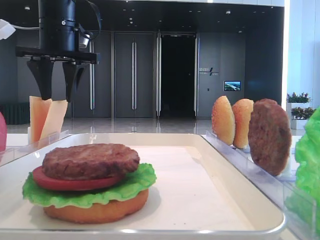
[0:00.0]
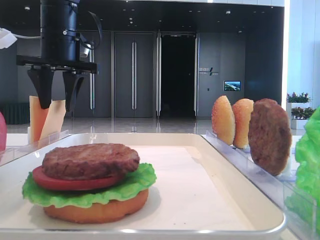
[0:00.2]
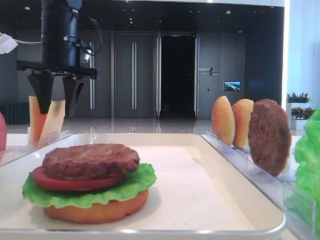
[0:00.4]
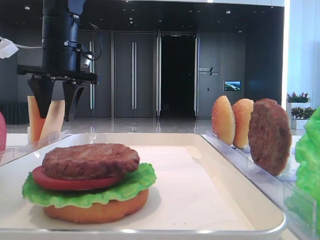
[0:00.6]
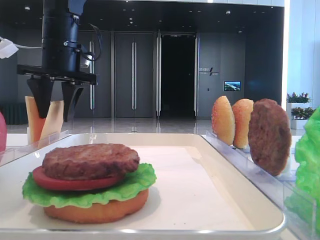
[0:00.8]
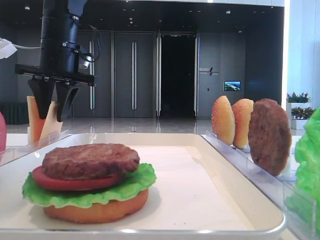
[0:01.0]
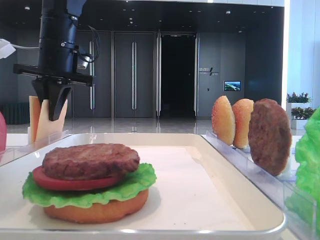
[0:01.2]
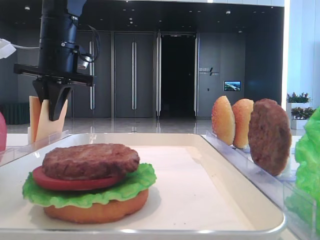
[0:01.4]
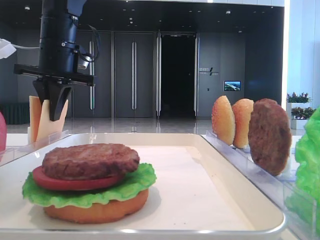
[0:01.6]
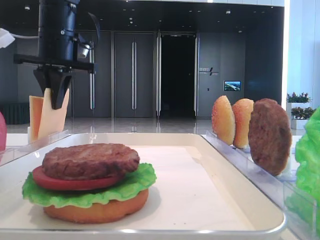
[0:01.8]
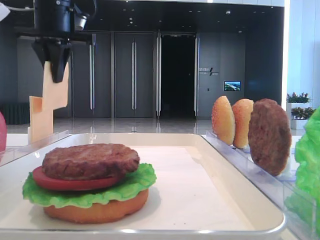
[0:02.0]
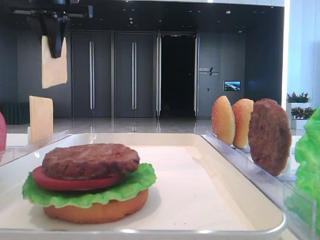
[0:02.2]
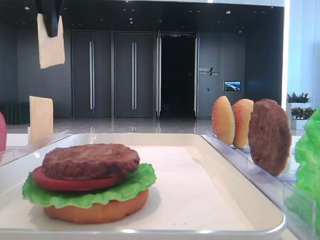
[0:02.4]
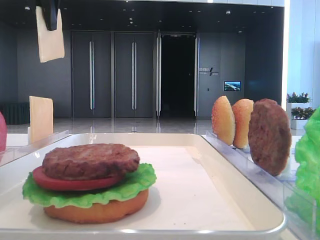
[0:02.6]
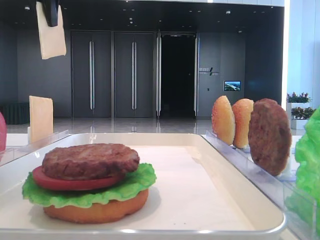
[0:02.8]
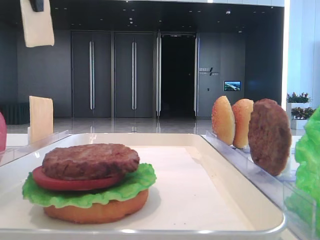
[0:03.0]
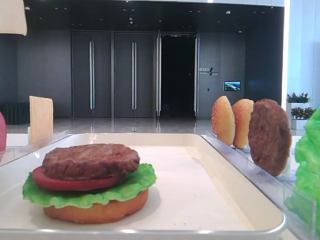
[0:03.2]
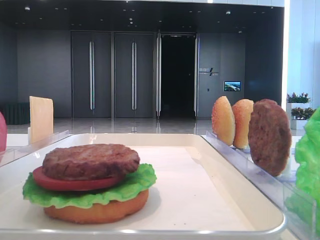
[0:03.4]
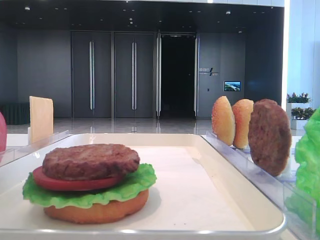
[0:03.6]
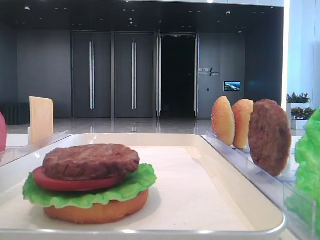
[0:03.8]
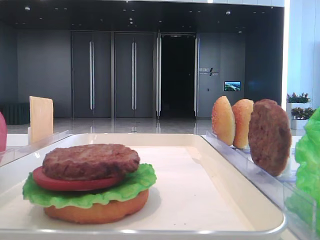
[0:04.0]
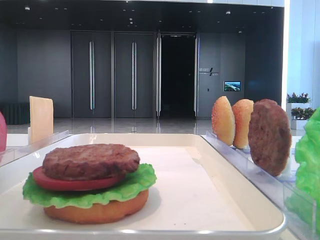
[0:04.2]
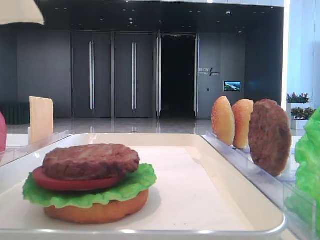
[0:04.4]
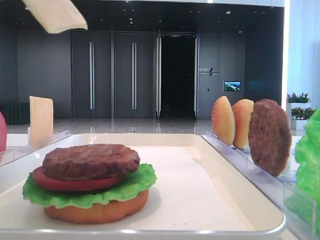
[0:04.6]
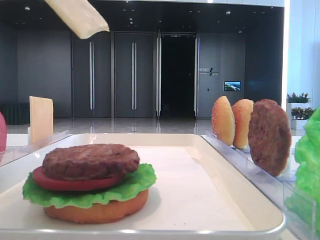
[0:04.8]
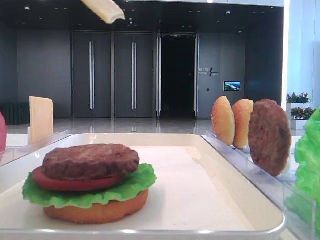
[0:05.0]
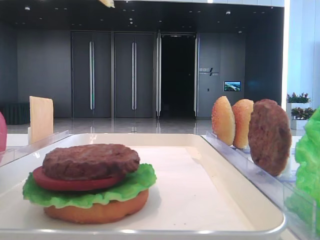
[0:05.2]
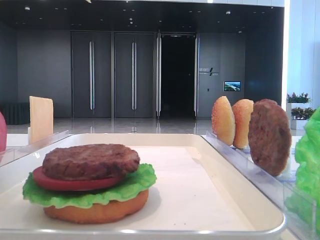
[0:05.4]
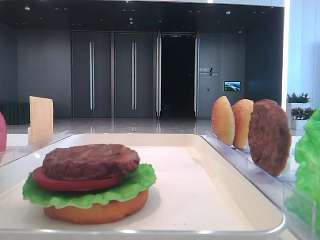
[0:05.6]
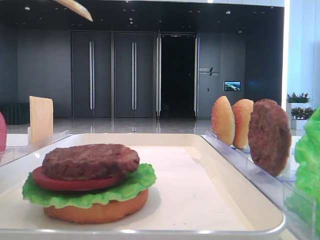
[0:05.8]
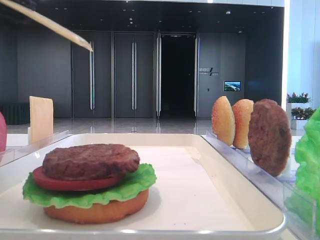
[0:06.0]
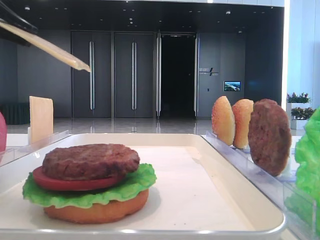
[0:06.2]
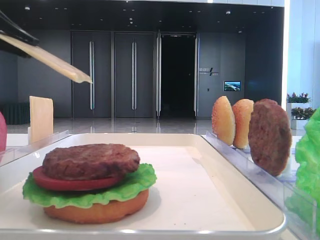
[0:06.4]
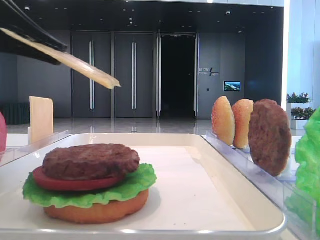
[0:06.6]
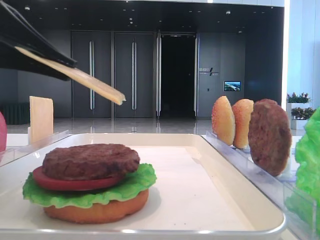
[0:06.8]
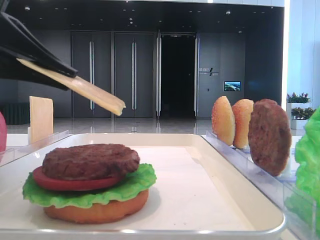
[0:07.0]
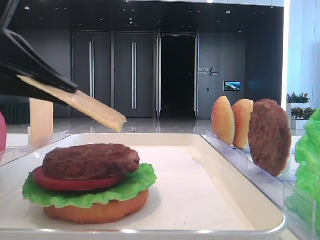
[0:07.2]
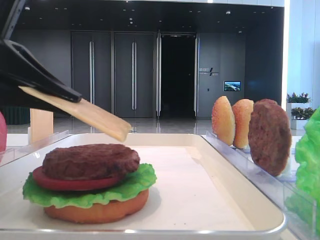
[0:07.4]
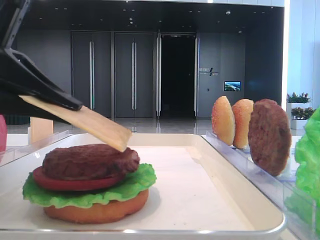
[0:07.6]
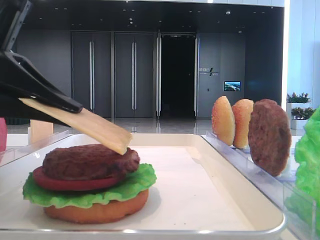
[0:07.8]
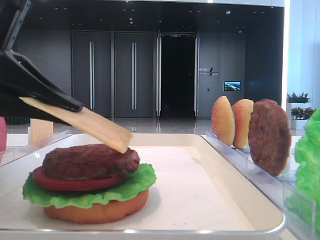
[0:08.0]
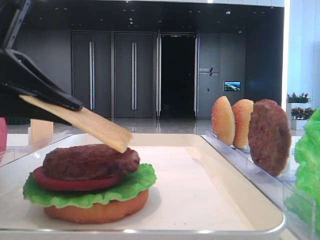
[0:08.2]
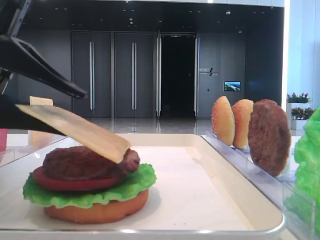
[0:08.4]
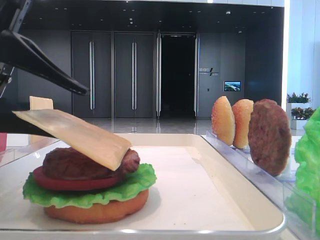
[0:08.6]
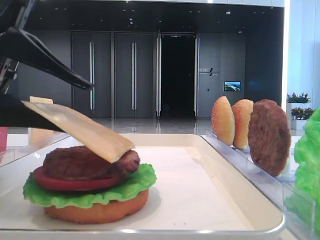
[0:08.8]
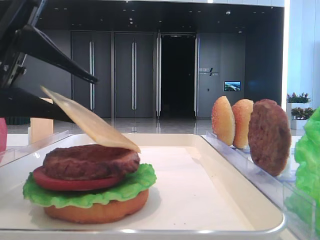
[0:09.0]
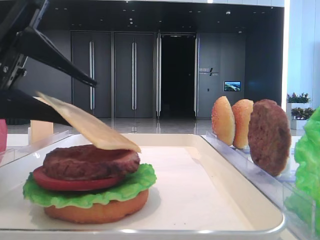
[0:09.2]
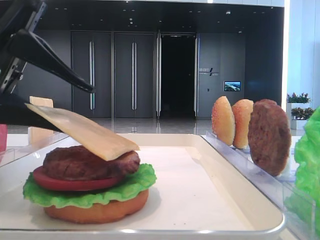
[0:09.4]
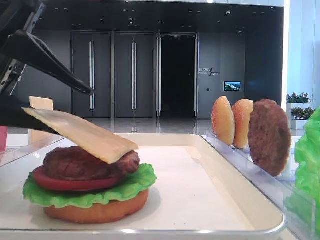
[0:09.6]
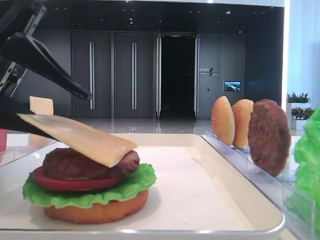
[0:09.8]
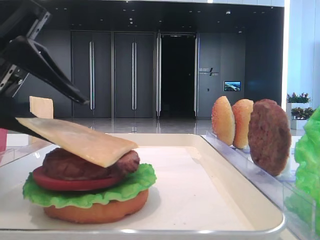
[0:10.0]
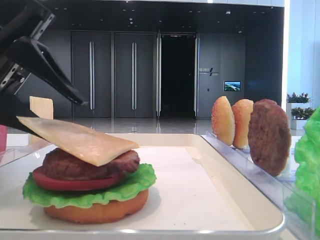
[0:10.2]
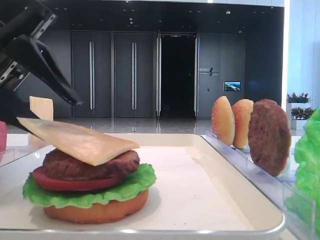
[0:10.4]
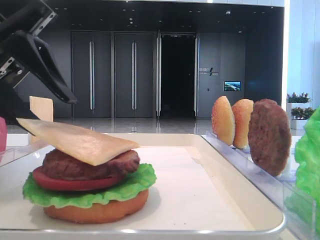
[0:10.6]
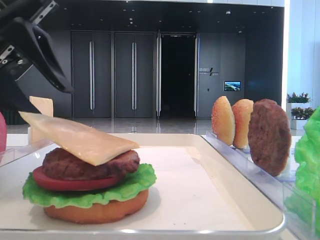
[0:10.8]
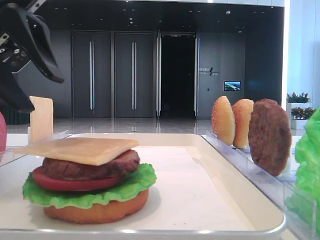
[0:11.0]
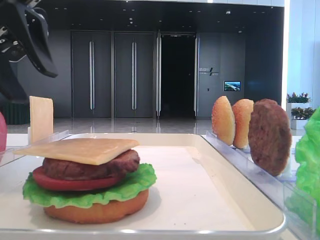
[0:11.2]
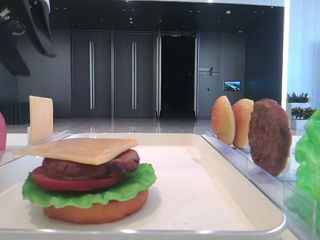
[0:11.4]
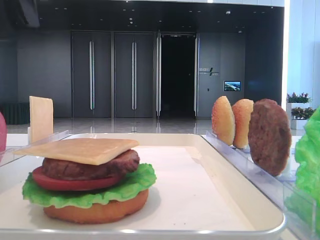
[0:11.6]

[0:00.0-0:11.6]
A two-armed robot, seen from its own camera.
Step, 0:01.8 to 0:10.8: Place the cheese slice on the patty with the left hand.
0:00.0 to 0:01.4: The left gripper closes its fingers.
0:01.4 to 0:02.8: The left gripper moves upward, some 15 cm.
0:02.8 to 0:04.4: The left gripper travels backward by some 25 cm.
0:04.4 to 0:05.8: The left gripper moves downward, roughly 10 cm.
0:05.8 to 0:07.2: The left gripper is displaced downward by about 10 cm.
0:07.2 to 0:08.8: The left gripper opens its fingers.
0:08.8 to 0:10.2: The grippers make only small movements.
0:10.2 to 0:11.6: The left gripper heads upward and forward, covering roughly 15 cm.

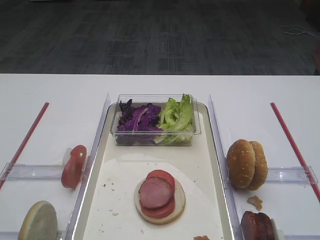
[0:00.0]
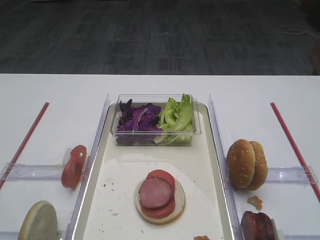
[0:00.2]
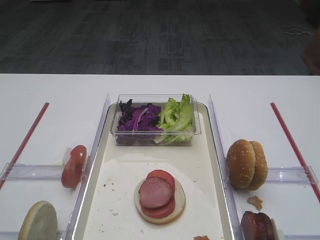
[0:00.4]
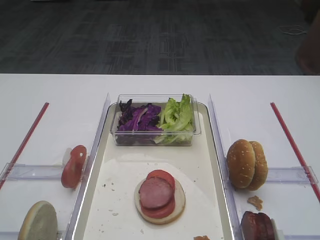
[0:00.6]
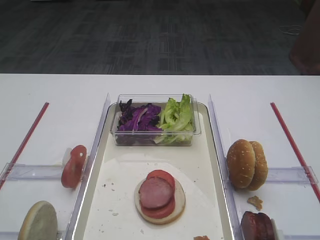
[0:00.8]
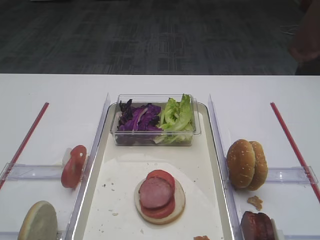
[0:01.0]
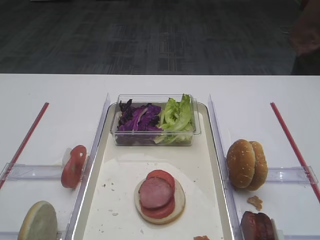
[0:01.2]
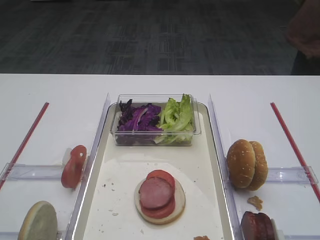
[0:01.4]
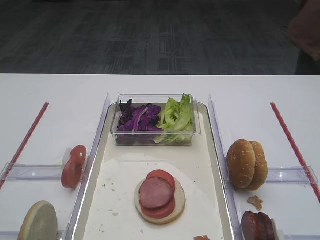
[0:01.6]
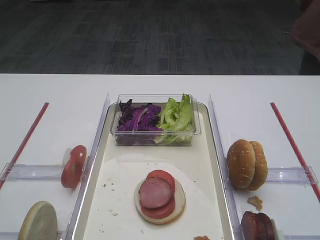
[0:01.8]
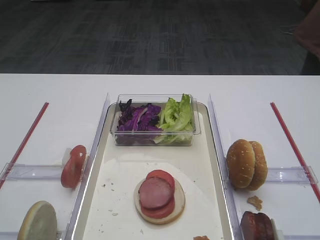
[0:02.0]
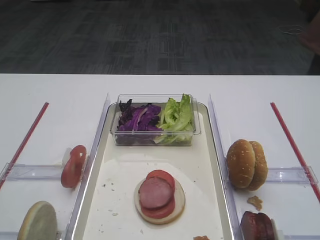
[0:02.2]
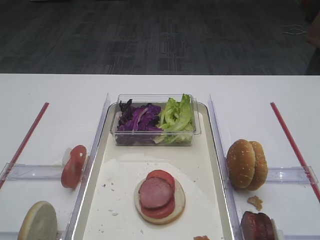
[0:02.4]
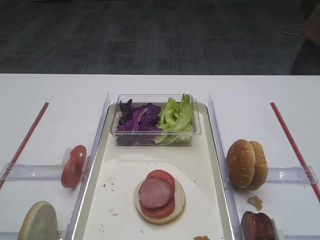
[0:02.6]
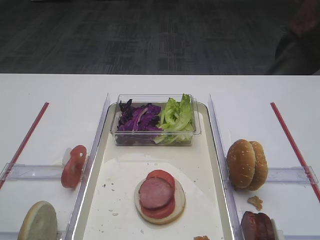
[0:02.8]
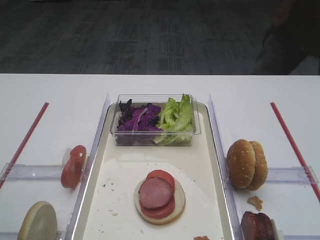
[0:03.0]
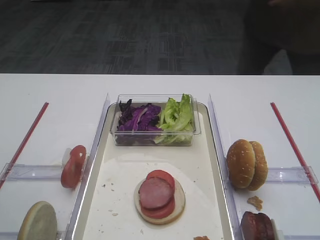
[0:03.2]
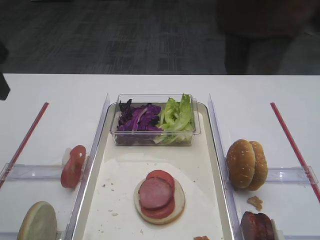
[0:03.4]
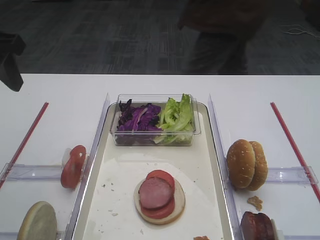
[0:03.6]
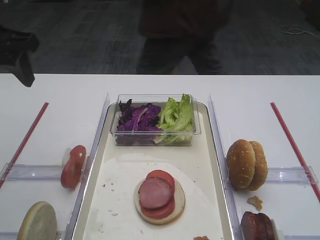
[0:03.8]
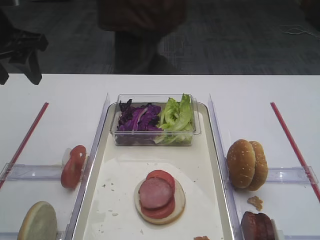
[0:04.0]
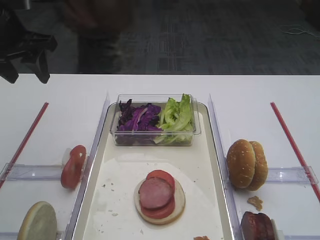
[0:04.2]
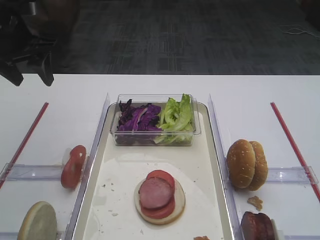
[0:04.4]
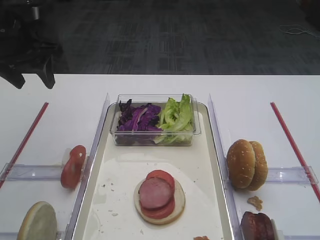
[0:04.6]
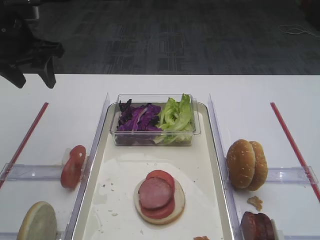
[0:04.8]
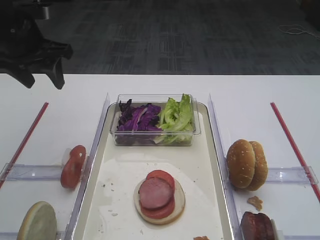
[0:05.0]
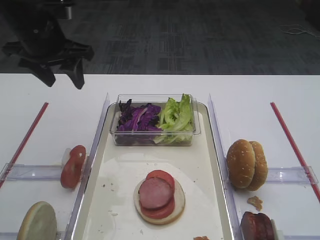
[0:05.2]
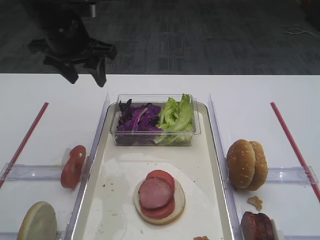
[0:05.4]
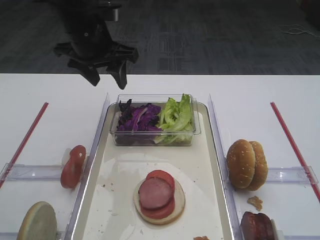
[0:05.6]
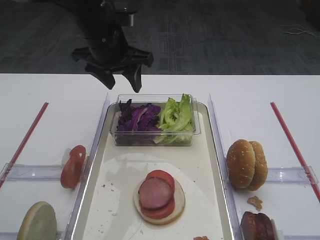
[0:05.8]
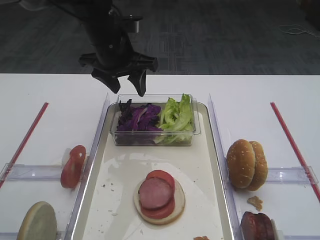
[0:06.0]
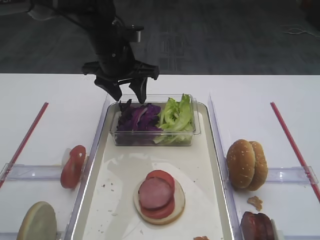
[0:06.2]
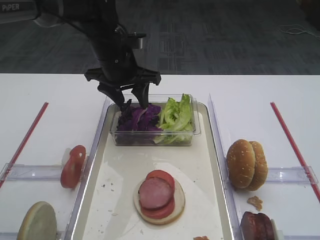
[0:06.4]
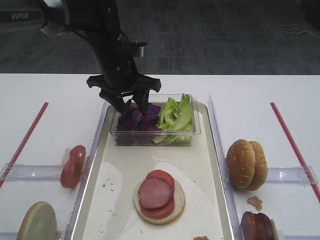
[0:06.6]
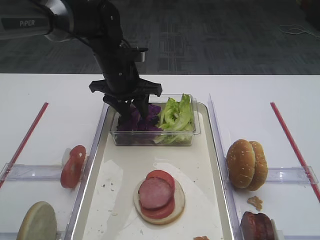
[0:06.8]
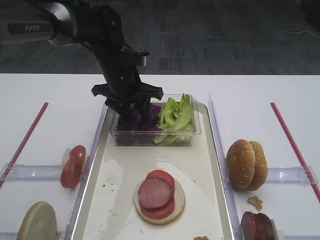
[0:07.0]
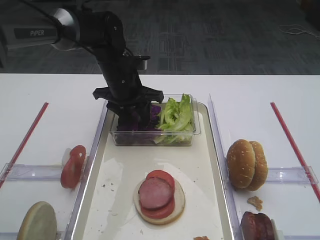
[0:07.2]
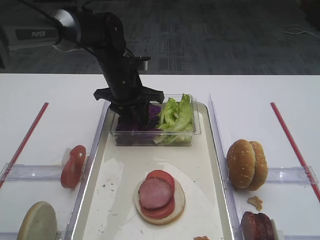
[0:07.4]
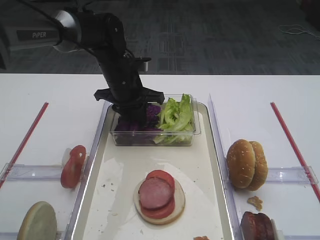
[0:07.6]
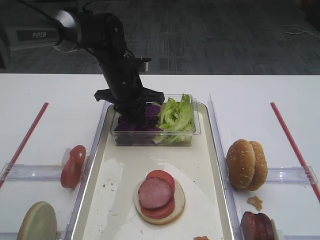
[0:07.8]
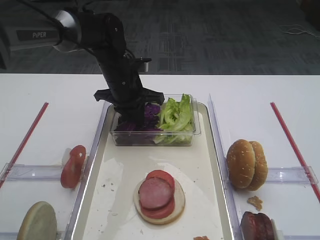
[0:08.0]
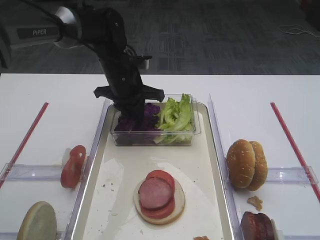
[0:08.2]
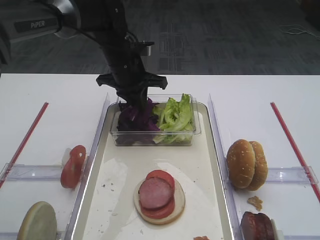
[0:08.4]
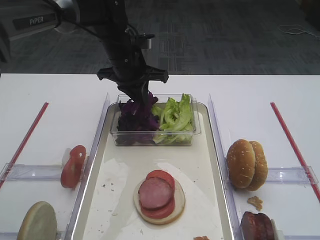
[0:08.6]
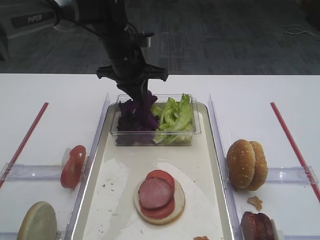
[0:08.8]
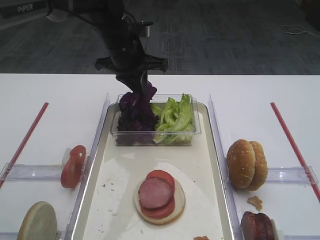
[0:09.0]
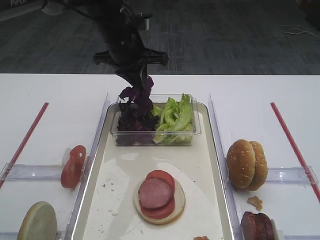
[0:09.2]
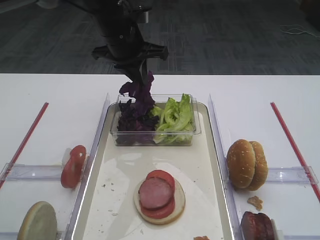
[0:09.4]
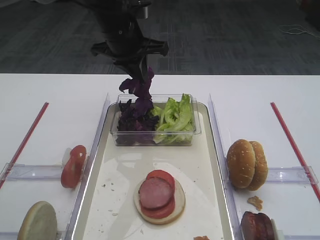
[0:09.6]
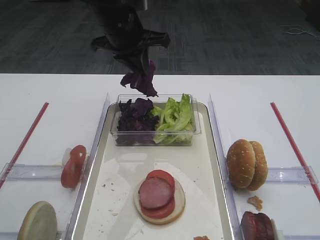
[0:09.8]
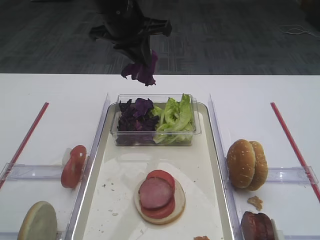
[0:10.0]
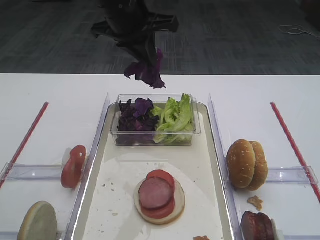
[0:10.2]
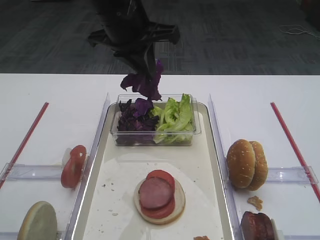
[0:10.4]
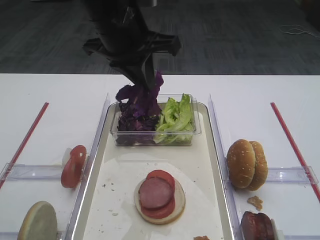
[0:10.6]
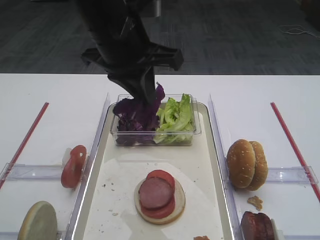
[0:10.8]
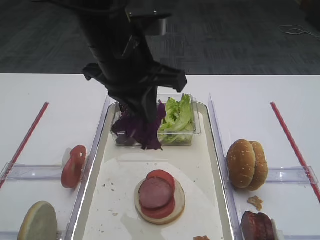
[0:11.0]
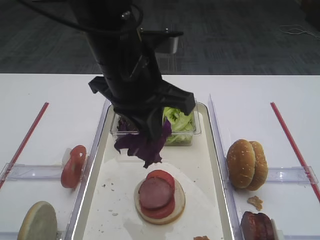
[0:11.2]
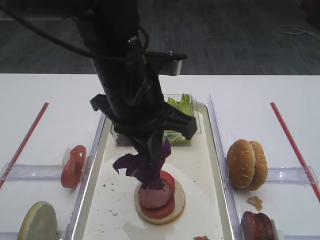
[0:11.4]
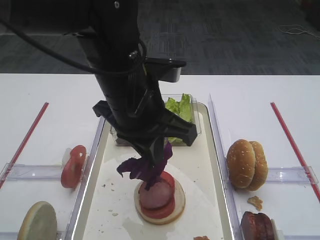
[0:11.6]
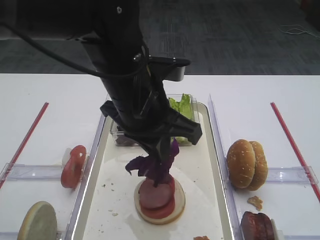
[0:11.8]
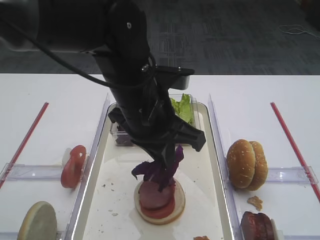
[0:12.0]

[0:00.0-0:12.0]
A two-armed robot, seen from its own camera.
Step, 0:00.0 to 0:10.4: Pick up the purple cabbage with the left gripper.
0:03.0 to 0:04.4: The left gripper shifts roughly 25 cm forward.
0:04.4 to 0:06.0: The left gripper travels to the right by roughly 15 cm.
0:06.0 to 0:07.6: The left gripper moves downward, about 10 cm, and closes its fingers.
0:07.6 to 0:09.0: The left gripper goes about 5 cm upward, and closes.
0:09.0 to 0:10.4: The left gripper travels upward and backward by about 10 cm.
0:10.4 to 0:12.0: The left gripper travels backward and downward by about 15 cm.
